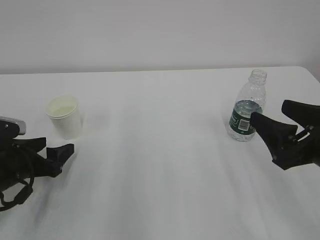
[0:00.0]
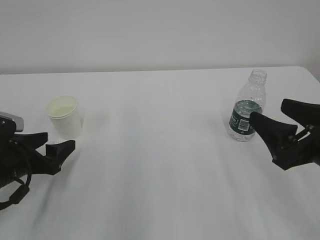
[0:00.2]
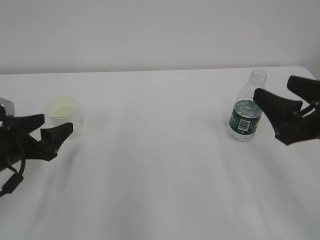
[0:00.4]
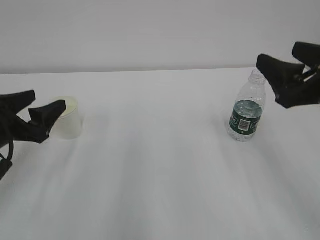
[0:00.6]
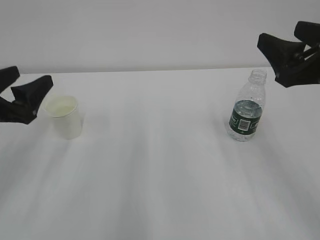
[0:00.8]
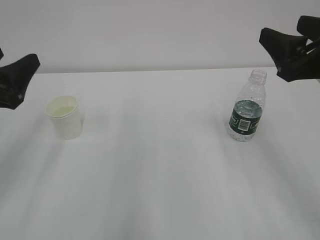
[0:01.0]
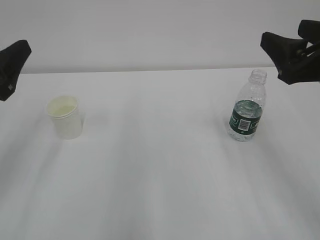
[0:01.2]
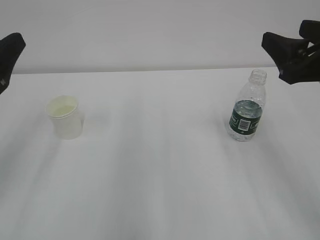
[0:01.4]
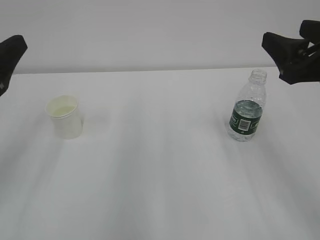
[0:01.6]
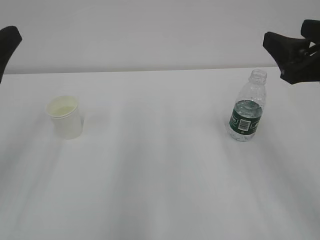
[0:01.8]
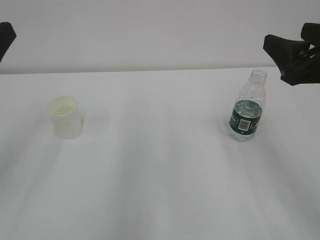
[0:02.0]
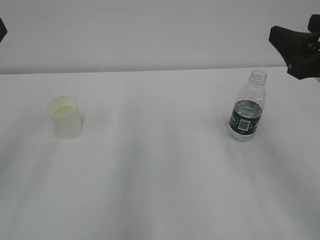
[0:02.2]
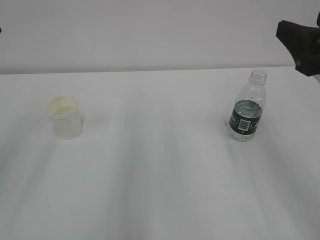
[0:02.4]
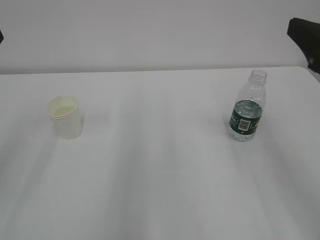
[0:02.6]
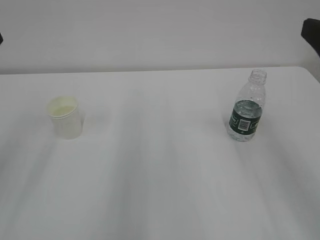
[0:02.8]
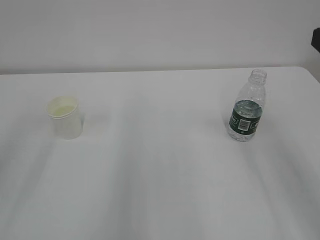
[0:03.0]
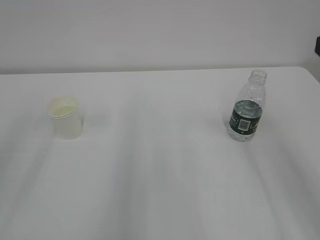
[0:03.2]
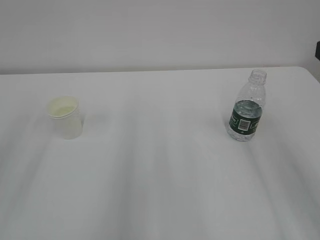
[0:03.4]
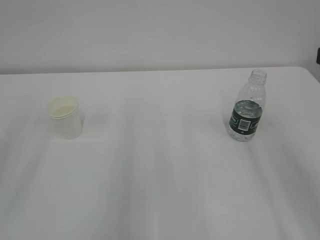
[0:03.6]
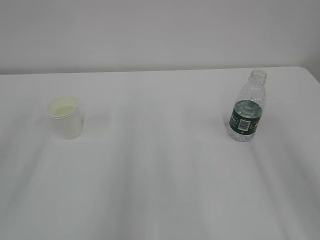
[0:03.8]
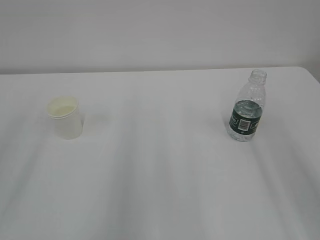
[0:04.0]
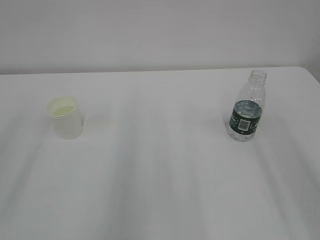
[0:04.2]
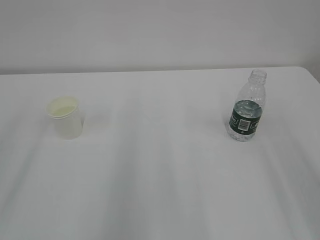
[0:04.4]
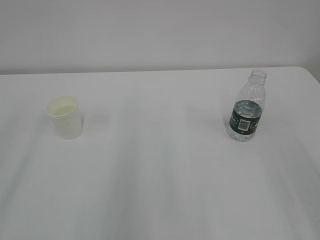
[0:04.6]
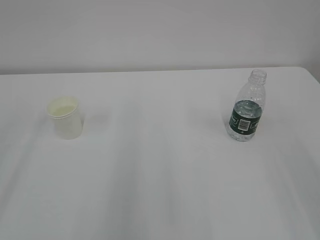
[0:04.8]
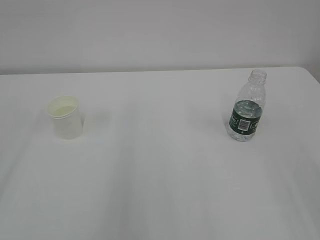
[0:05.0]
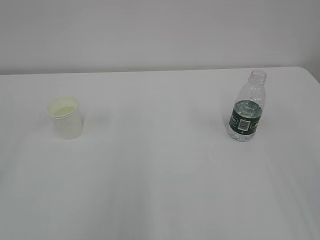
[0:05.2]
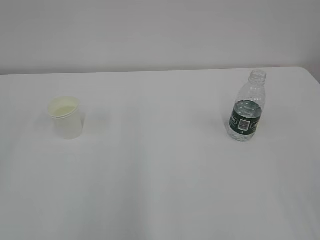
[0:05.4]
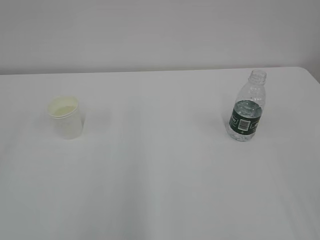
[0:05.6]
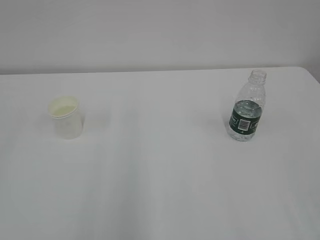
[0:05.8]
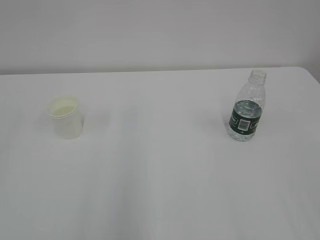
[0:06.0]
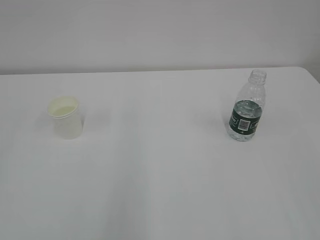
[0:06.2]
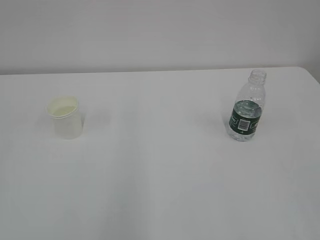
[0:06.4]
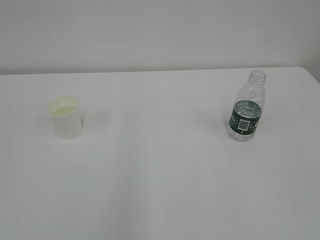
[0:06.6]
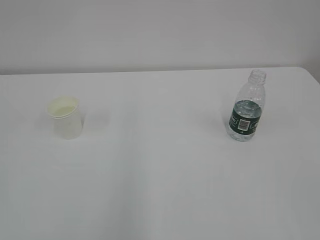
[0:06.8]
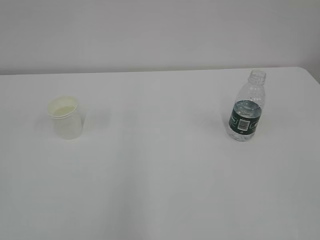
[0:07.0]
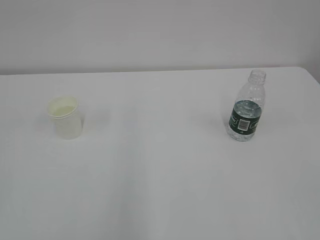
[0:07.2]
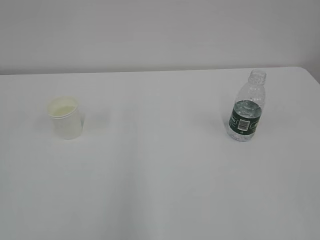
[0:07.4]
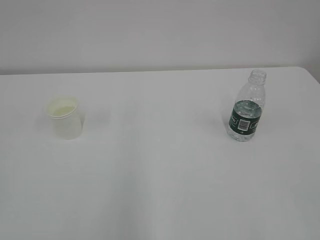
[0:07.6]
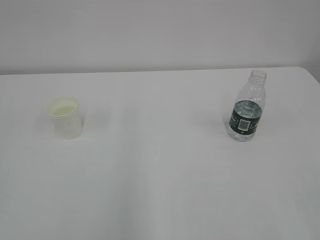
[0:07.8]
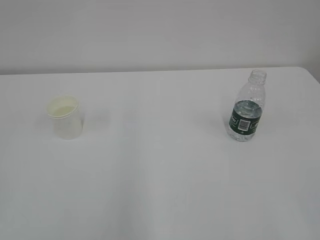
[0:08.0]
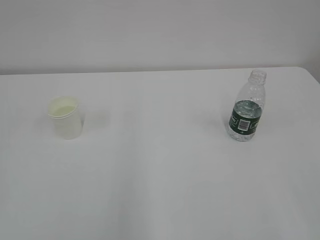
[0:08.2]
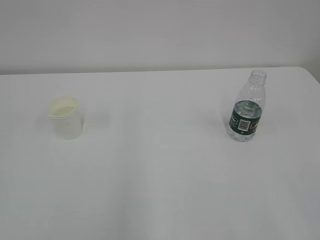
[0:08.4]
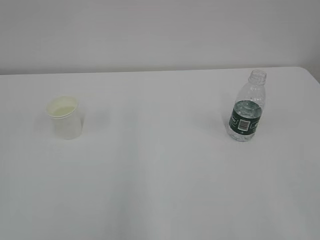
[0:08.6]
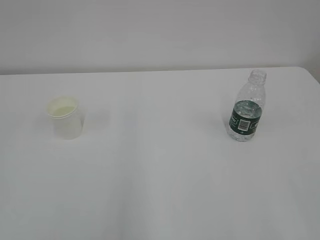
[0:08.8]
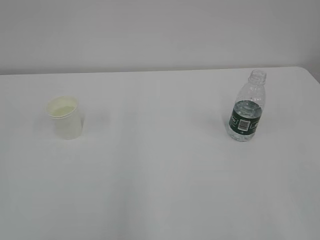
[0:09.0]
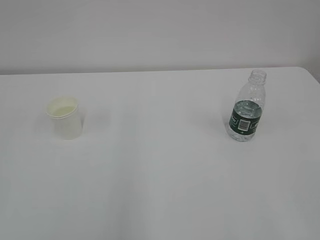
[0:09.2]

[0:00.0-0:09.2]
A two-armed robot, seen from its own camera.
0.0 to 1.6 s: The right gripper is displaced upward by about 10 cm; the left gripper shifts about 20 cm upward.
1.6 to 3.0 s: The right gripper shifts roughly 5 cm backward.

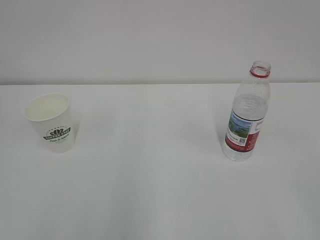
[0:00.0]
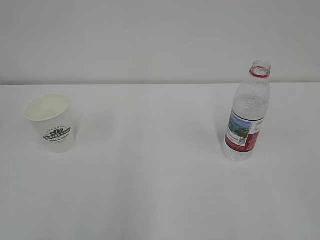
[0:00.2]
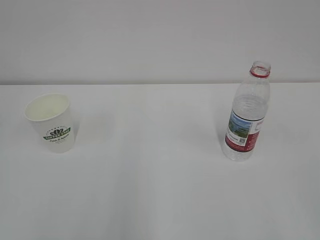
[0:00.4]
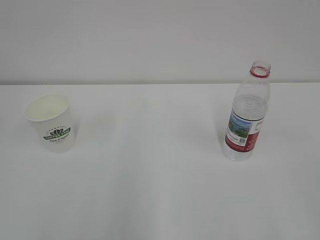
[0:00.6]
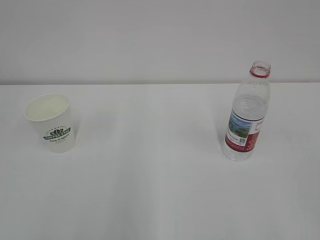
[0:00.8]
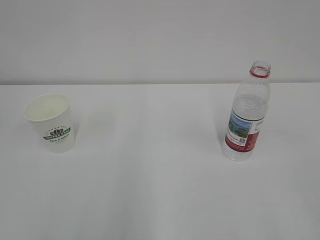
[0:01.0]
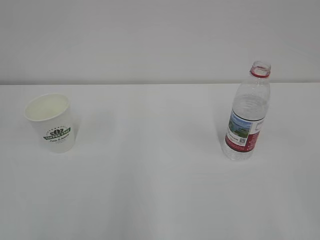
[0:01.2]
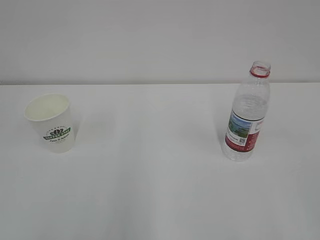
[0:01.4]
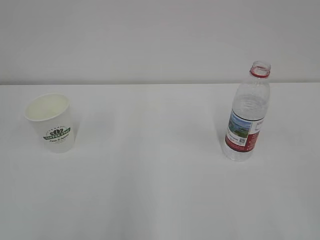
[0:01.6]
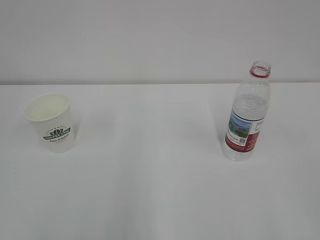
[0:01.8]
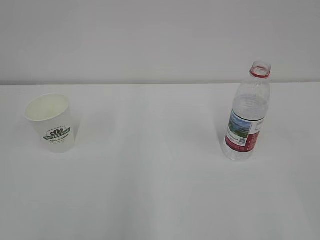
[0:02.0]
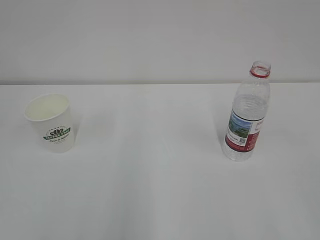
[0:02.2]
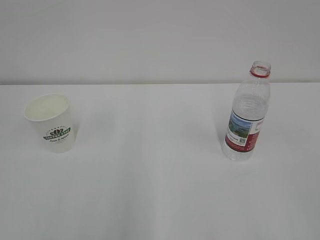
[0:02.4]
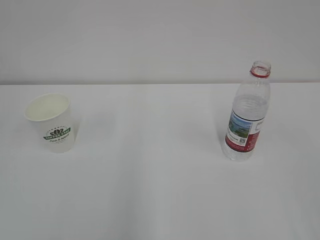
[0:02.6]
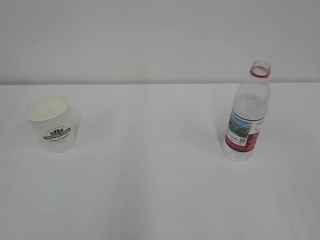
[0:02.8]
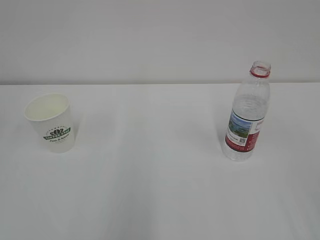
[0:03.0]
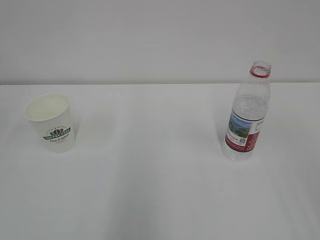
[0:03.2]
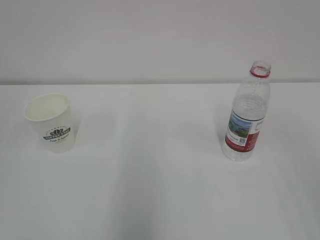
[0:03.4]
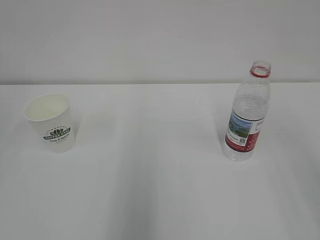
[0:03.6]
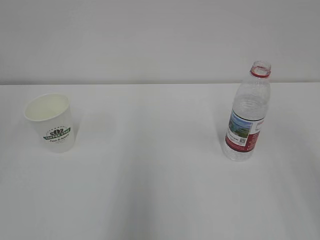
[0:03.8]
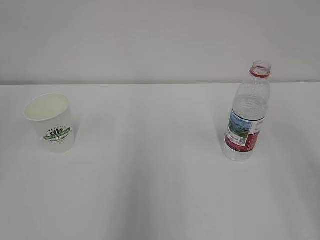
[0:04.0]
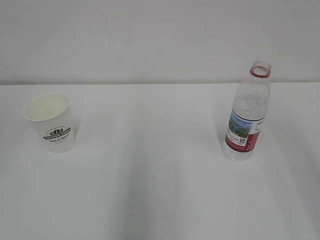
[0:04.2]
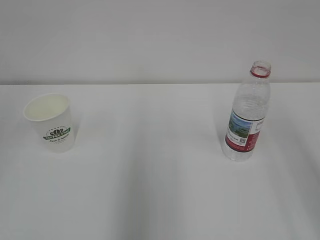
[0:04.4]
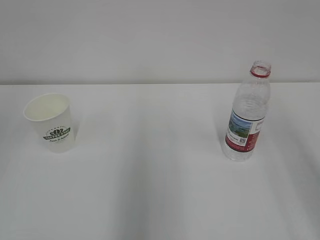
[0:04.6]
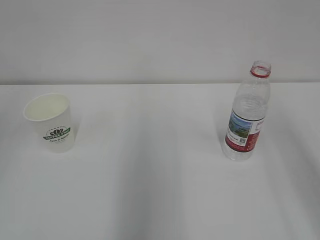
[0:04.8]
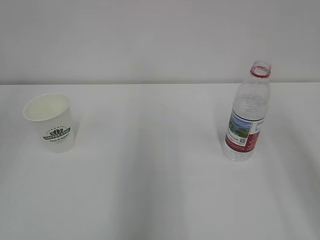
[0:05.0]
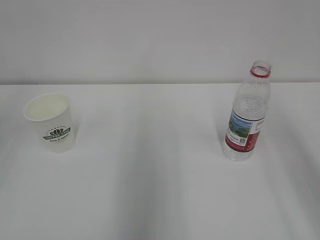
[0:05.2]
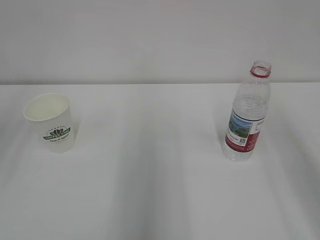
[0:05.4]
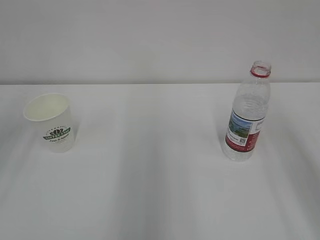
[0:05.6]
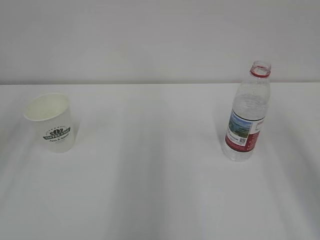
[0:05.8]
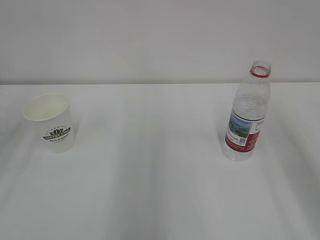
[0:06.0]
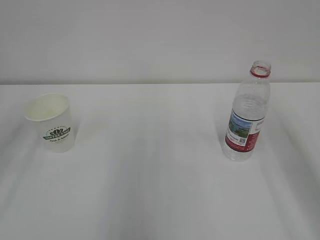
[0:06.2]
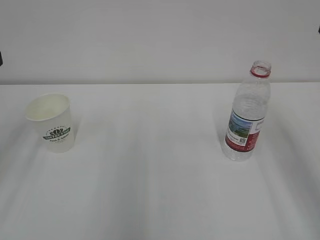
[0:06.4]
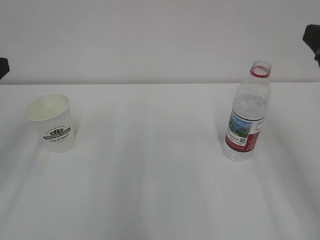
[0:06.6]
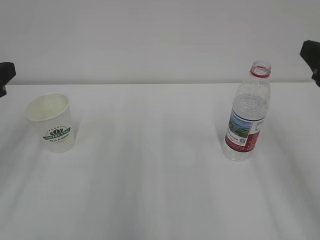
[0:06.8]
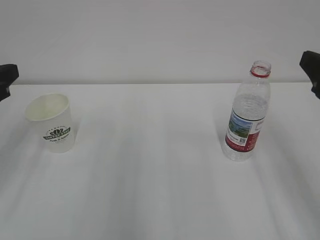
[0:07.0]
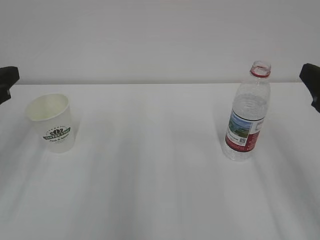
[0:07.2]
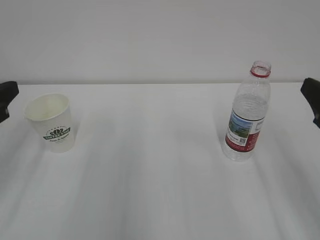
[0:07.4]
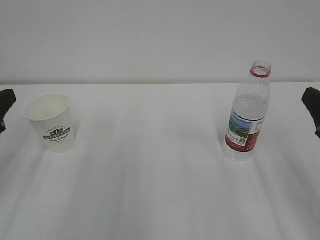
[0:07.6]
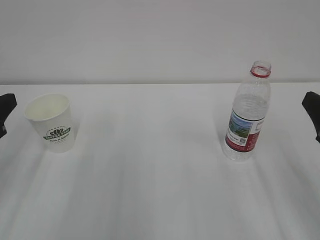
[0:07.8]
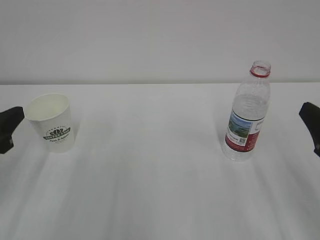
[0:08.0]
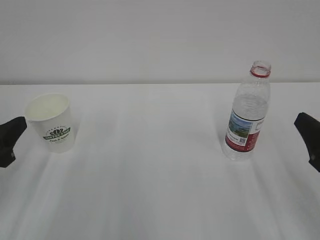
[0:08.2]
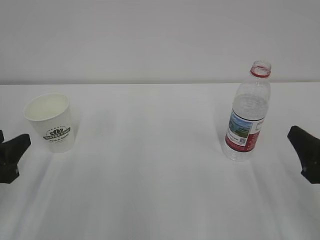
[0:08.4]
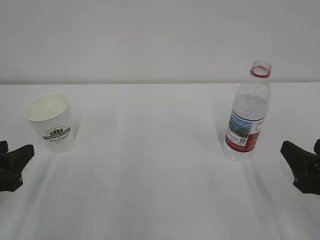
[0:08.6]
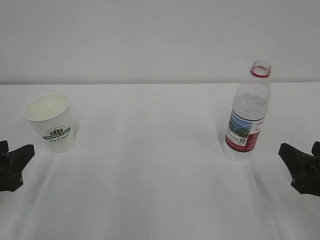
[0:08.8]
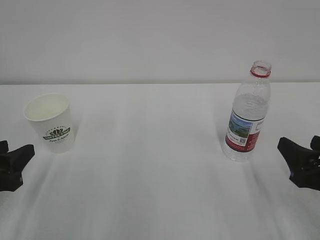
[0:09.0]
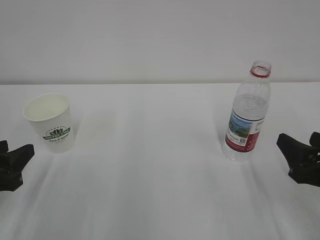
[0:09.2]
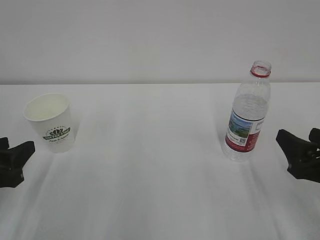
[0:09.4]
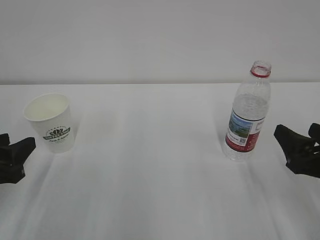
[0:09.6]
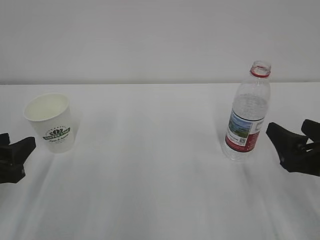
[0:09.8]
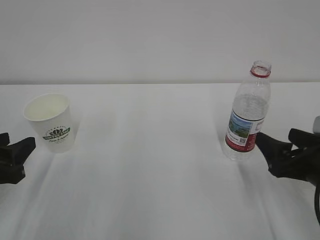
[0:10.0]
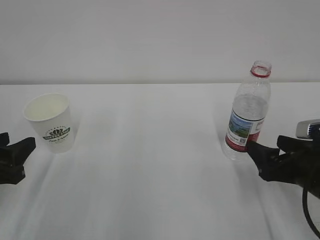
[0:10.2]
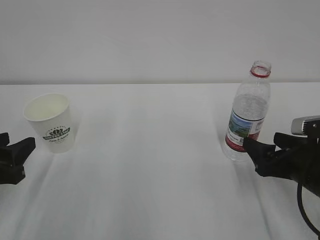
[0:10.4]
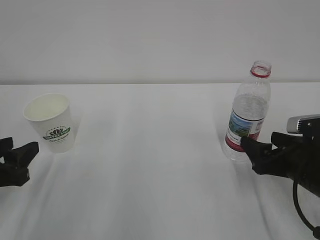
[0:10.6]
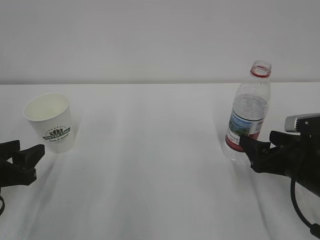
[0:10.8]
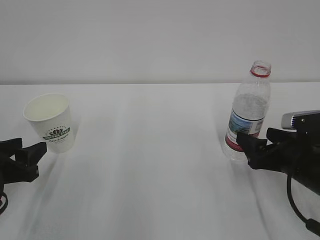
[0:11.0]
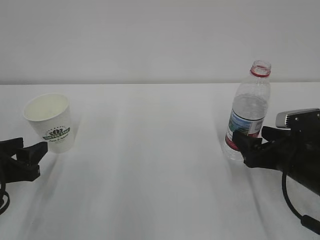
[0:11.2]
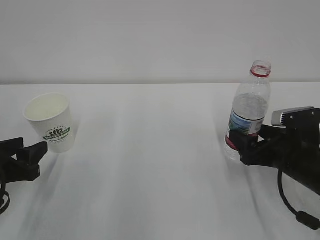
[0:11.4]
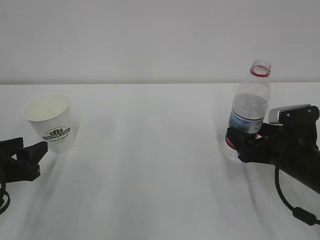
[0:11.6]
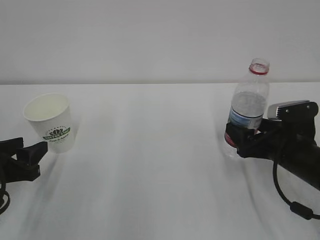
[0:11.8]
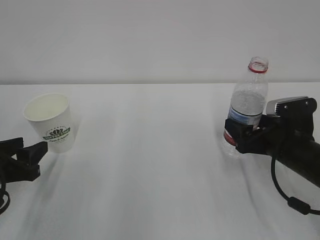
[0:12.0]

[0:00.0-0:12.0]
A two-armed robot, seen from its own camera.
6.0 to 7.6 s: The right gripper heads downward, covering about 10 cm.
7.6 to 9.0 s: The grippers both shift downward by approximately 10 cm.
9.0 to 10.4 s: The right gripper shifts about 5 cm forward, and opens up.
10.4 to 12.0 s: The right gripper goes roughly 5 cm forward.

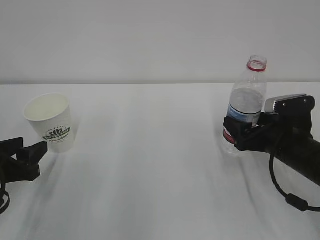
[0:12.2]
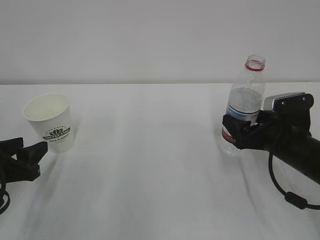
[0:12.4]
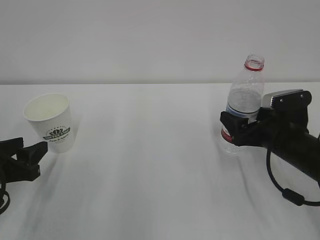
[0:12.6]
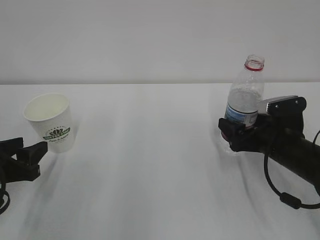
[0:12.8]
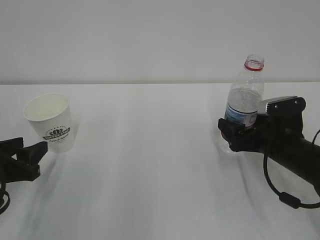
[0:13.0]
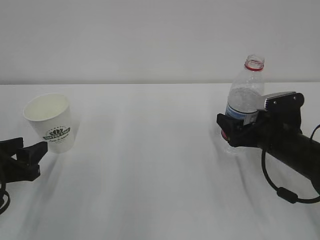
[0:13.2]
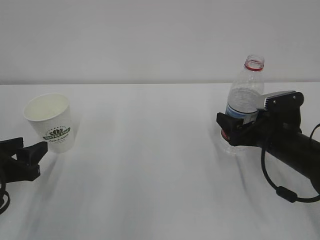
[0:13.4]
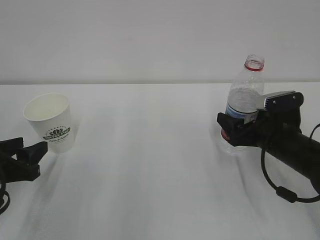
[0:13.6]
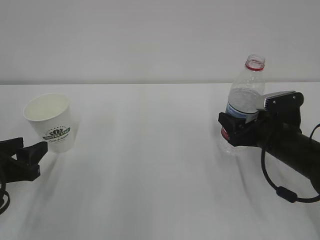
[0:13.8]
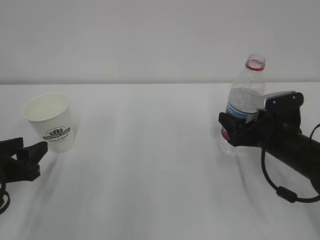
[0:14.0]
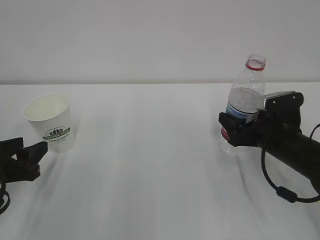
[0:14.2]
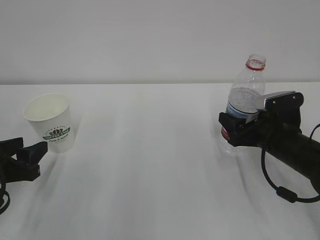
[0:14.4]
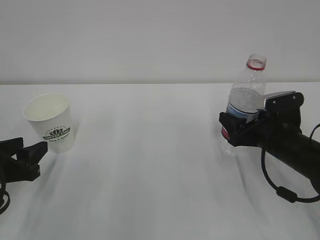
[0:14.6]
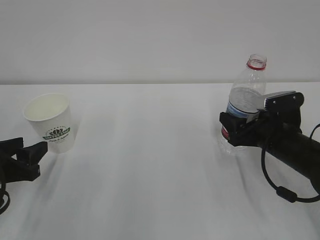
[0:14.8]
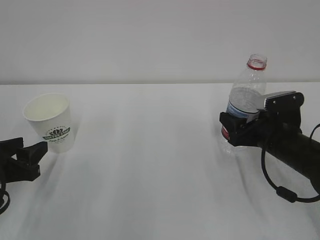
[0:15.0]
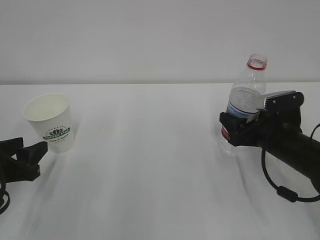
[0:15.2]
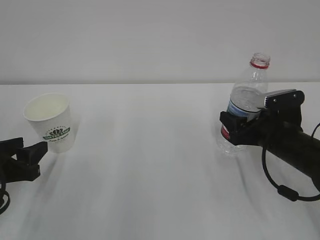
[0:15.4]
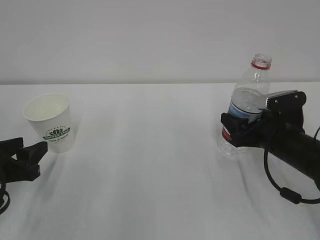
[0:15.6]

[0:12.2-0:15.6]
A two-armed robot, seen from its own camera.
12.2 to 13.8 s: The right gripper closes.
13.8 to 15.6 s: Both grippers stay about where they are.
